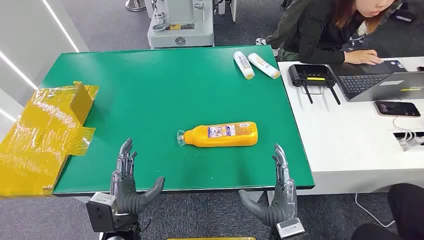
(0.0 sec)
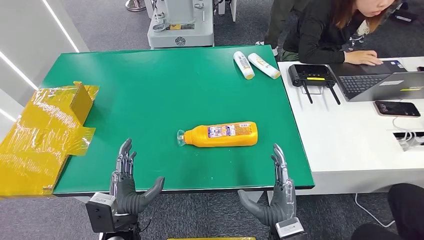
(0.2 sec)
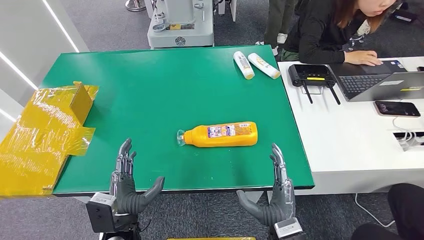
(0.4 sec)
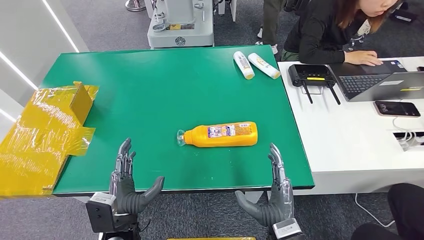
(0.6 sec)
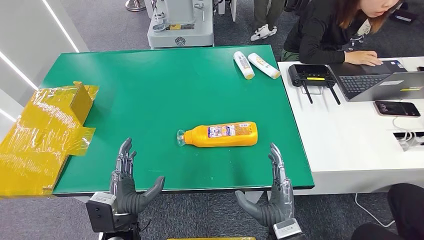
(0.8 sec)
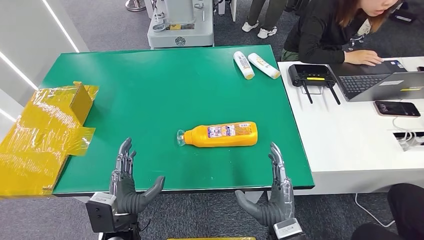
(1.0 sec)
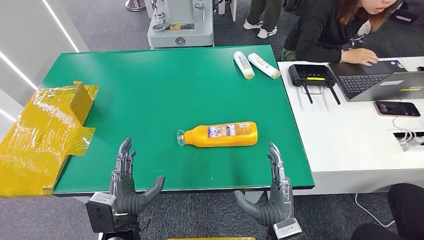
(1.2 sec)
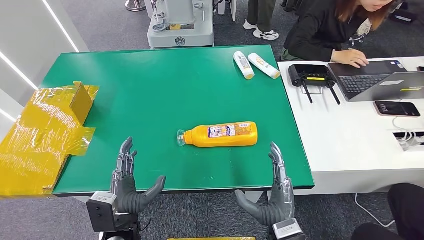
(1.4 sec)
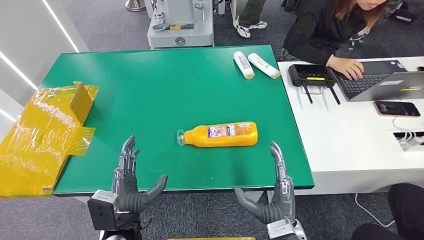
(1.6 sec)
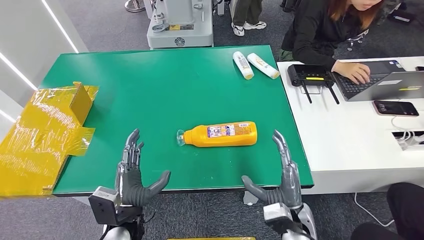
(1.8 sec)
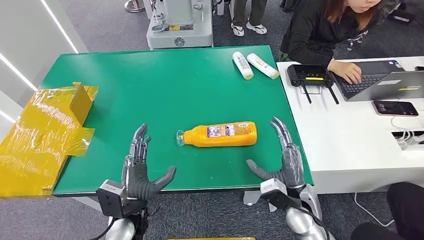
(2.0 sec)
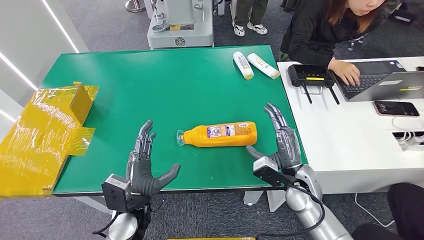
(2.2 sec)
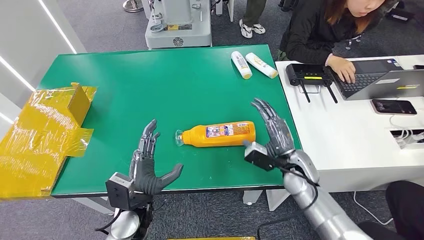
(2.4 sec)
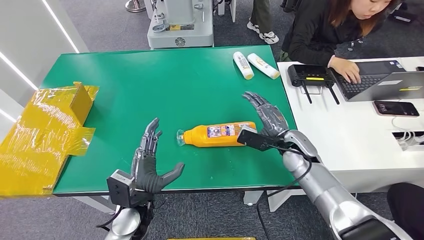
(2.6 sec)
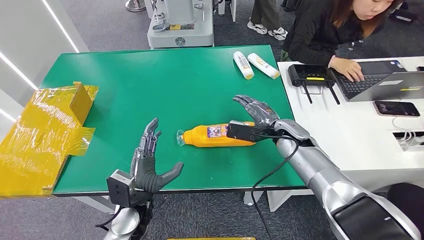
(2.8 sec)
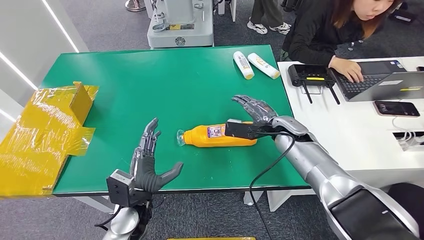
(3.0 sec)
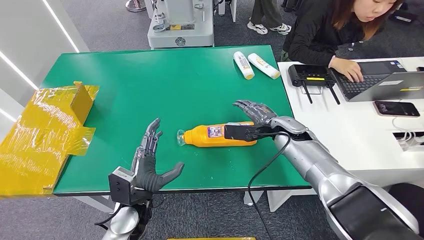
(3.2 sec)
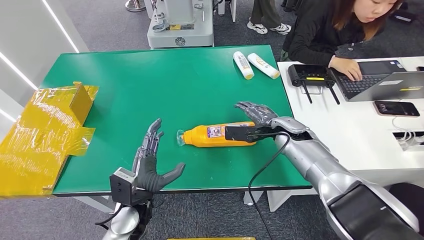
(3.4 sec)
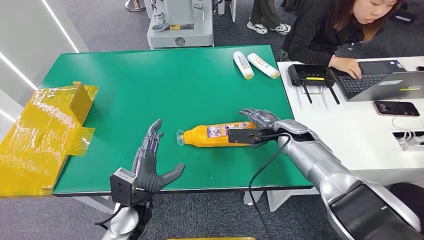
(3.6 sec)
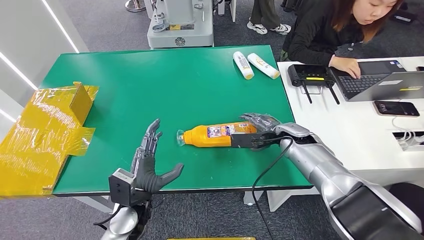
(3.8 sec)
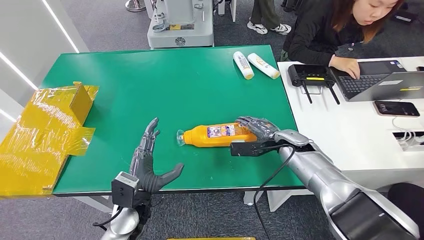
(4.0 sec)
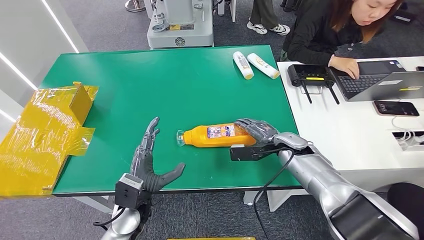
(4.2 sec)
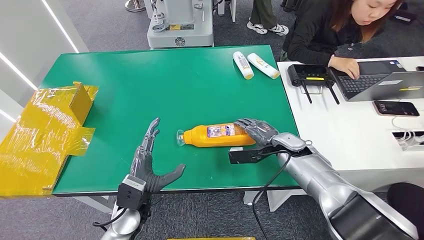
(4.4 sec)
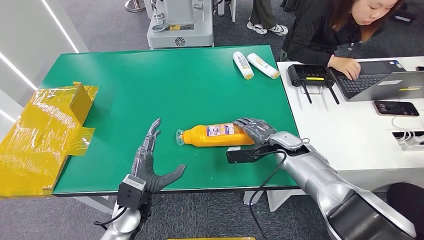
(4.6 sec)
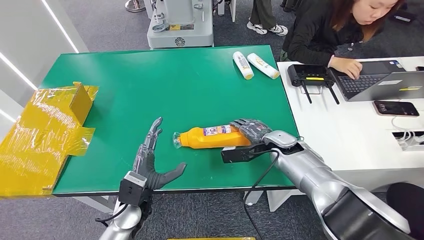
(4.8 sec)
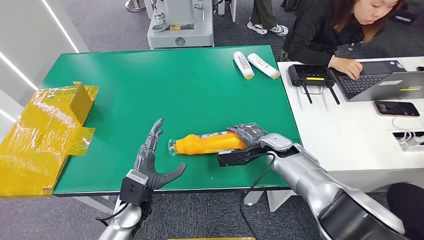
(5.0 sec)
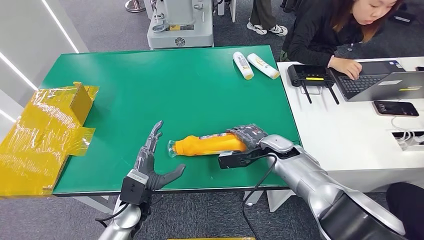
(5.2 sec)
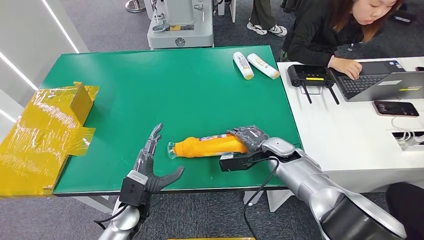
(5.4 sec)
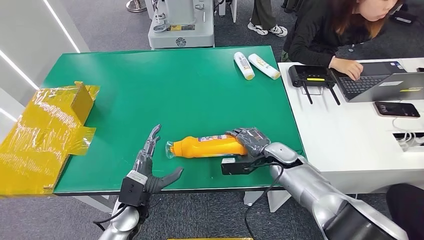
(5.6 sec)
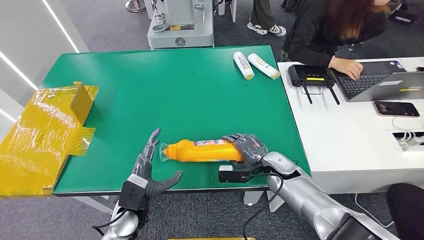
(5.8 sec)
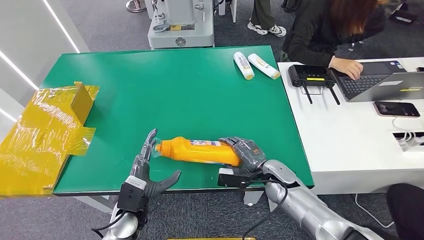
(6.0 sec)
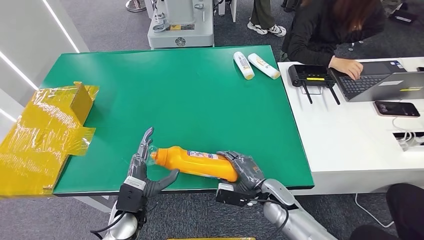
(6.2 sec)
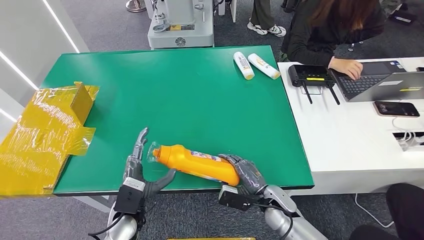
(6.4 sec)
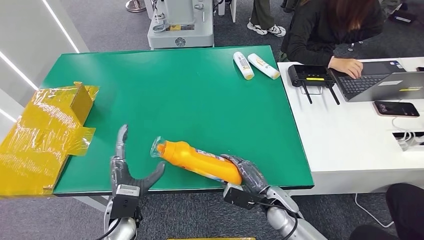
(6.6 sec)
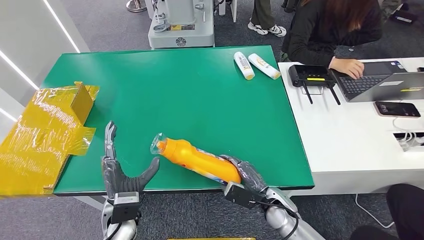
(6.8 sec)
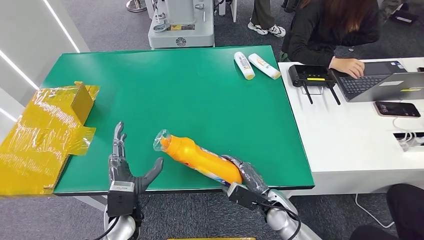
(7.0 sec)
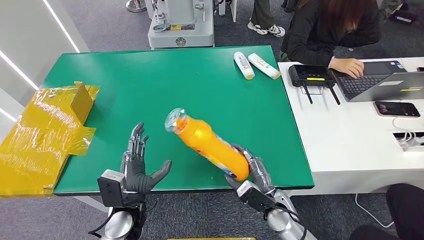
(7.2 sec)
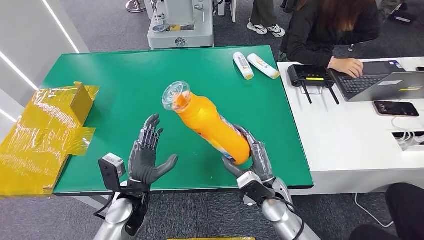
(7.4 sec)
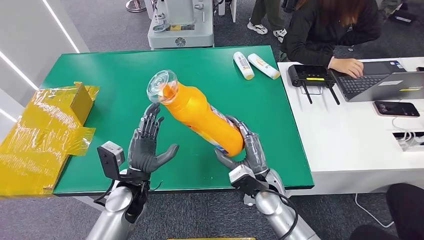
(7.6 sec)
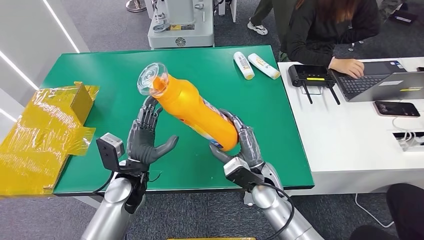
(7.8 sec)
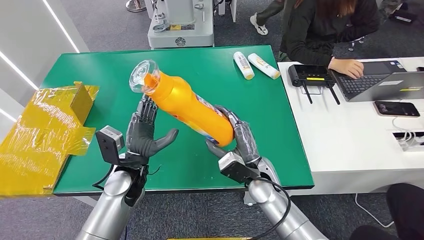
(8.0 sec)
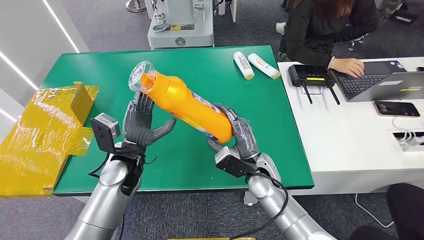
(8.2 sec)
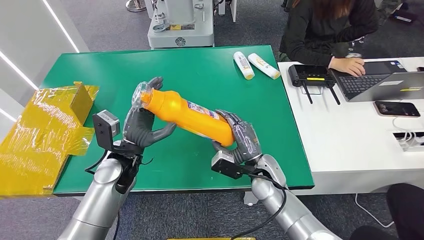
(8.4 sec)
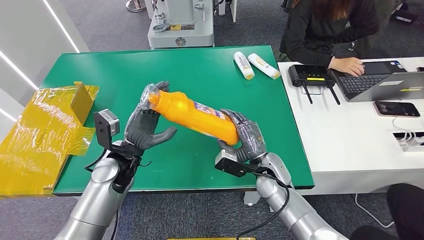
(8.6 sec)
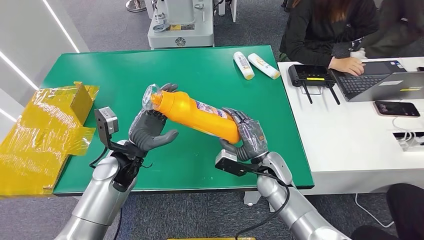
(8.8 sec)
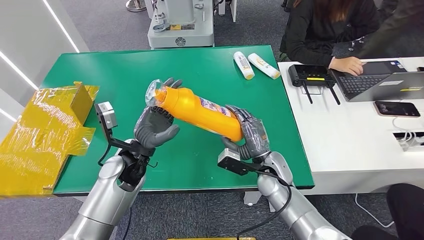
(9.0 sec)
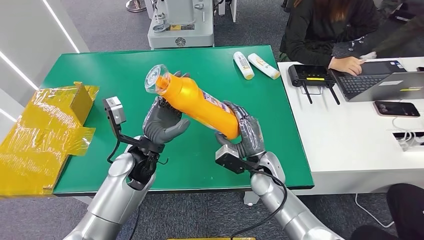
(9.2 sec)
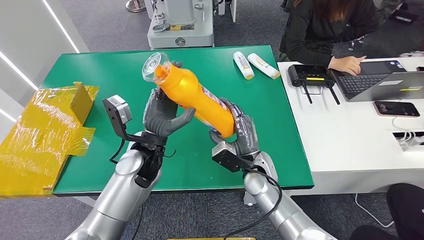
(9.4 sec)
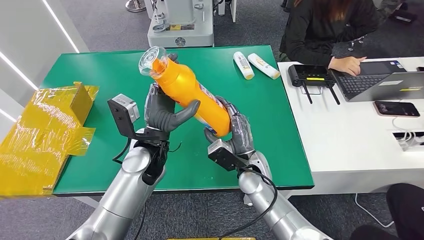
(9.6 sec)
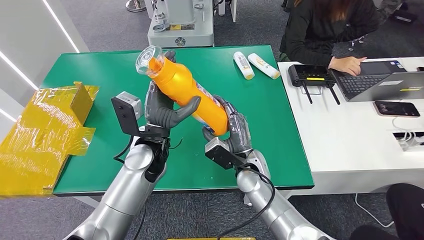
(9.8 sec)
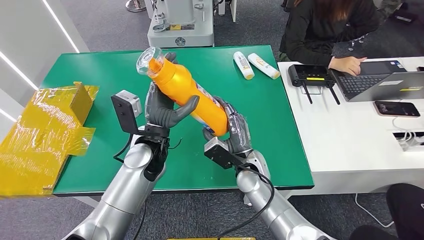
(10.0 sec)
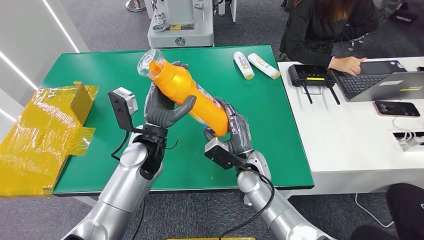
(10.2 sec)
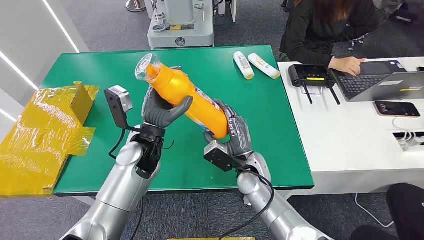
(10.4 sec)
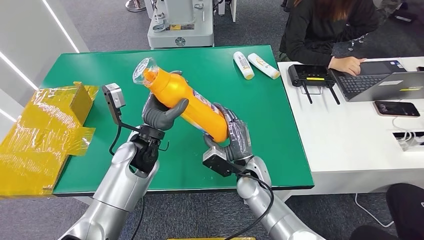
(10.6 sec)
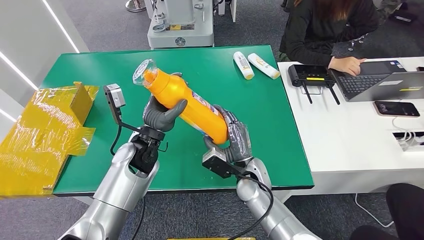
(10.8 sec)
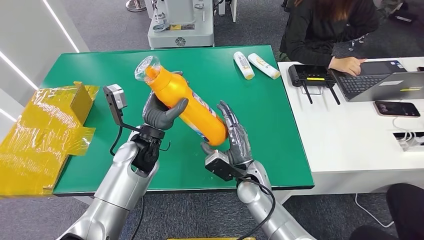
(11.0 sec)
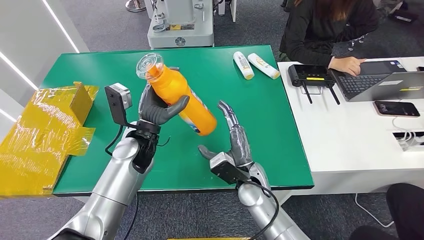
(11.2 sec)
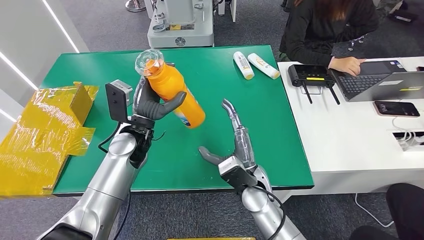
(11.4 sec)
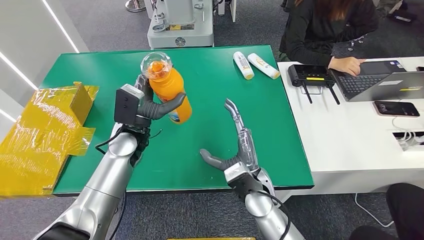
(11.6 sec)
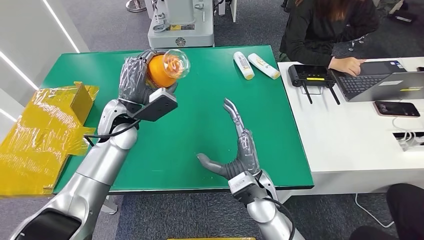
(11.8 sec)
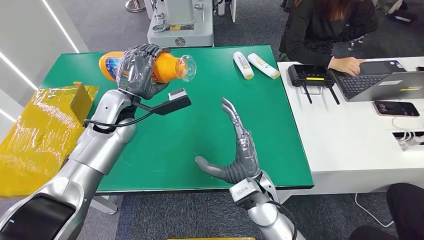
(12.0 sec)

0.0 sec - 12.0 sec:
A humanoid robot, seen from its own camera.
Step, 0.0 sec - 6.4 sec: Pick up the bottle from the table.
1.6 sec - 3.0 sec: The left hand shifts roughly 5 cm forward. Meanwhile the right hand shifts approximately 25 cm forward.
3.0 sec - 4.4 sec: The right hand goes about 5 cm downward.
4.4 sec - 6.0 sec: The right hand heads backward and downward, covering roughly 10 cm.
6.0 sec - 7.6 sec: The right hand moves about 5 cm, while the left hand shifts about 5 cm upward and forward.
7.6 sec - 9.0 sec: The left hand moves forward and upward, approximately 10 cm.
9.0 sec - 10.4 sec: The right hand heads to the left, covering approximately 5 cm, while the left hand ends up approximately 5 cm from where it was.

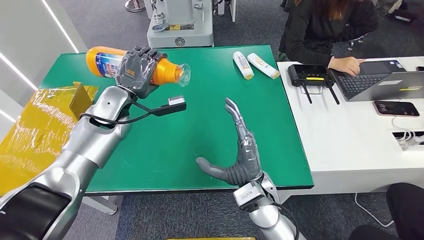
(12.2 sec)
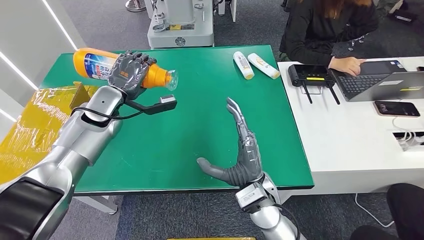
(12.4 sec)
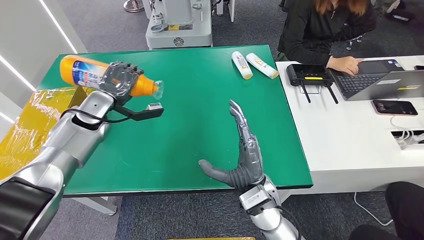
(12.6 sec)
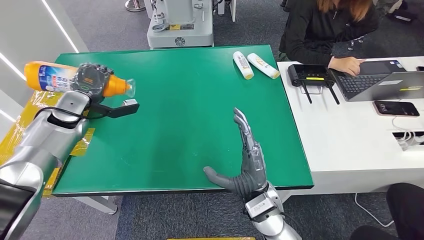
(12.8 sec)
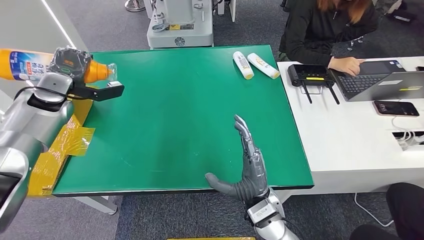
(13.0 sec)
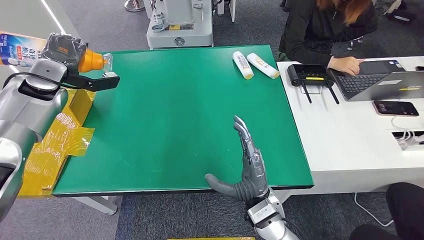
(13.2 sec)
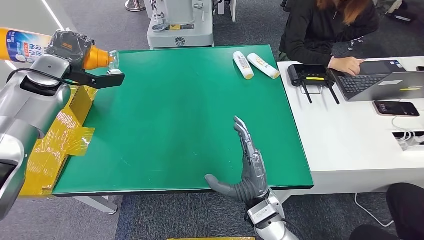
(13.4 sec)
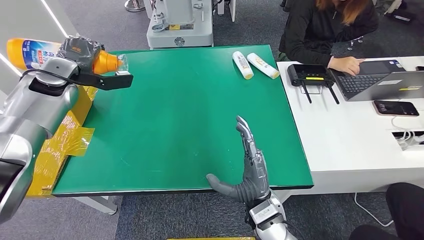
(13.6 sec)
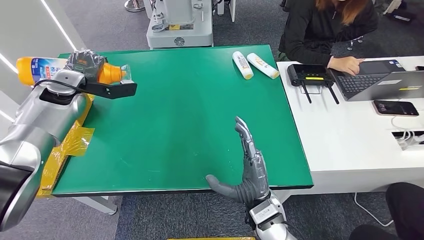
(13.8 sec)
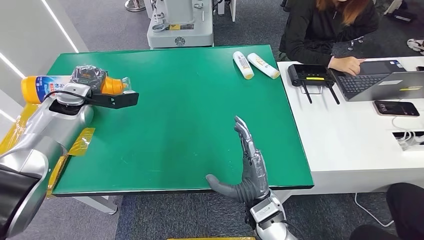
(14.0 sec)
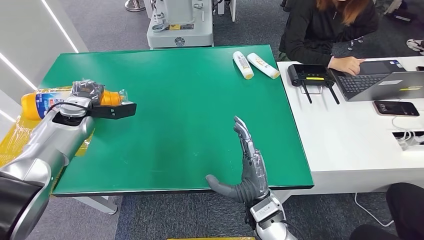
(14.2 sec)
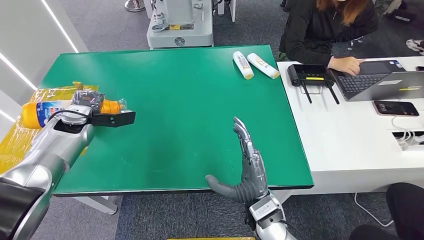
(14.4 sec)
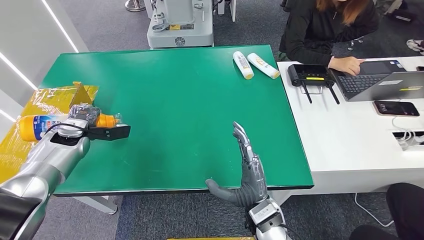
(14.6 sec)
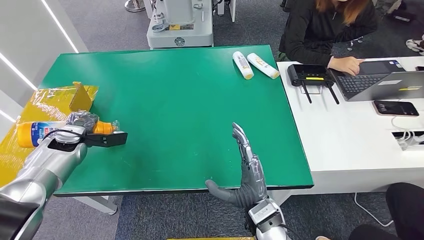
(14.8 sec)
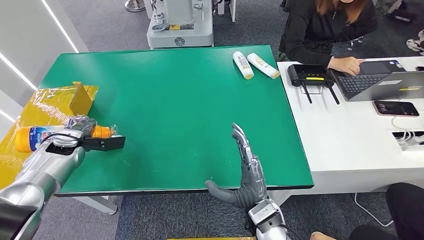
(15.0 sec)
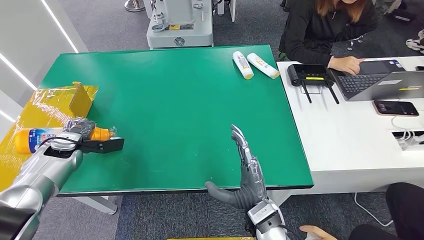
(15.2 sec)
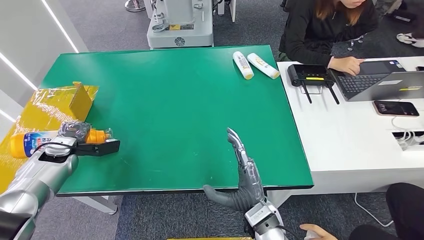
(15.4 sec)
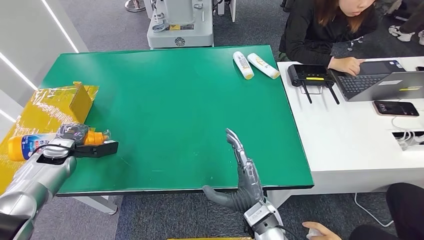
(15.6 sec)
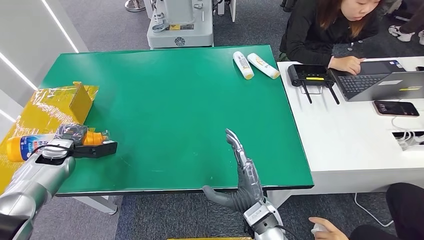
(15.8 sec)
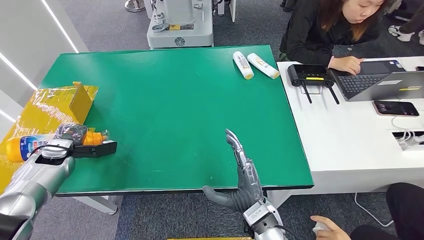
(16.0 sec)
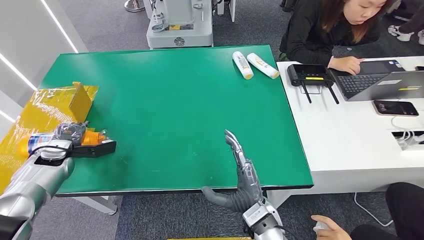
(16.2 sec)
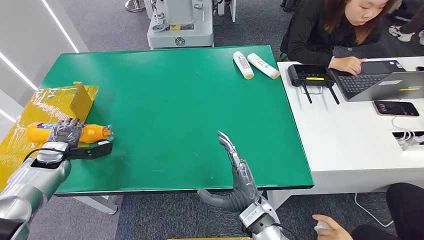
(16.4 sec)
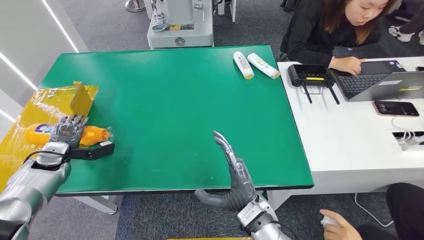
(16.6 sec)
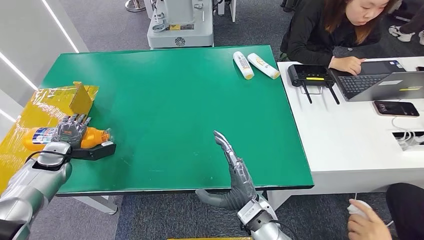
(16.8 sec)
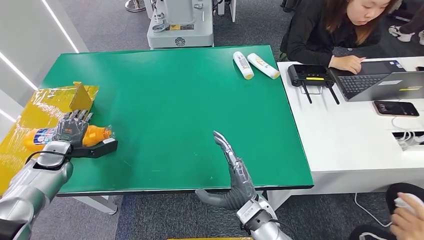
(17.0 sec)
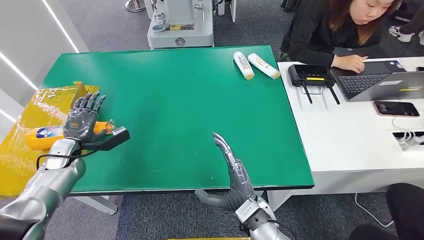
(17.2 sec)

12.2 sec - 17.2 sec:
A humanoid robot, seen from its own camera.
Step, 12.2 sec - 17.2 sec: Turn the bottle to the front side.
13.8 sec - 15.6 sec: The left hand heads downward, backward and to the left, covering approximately 20 cm.
